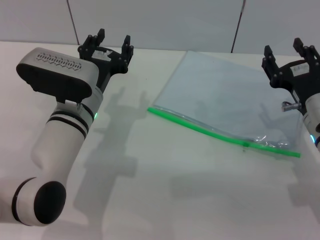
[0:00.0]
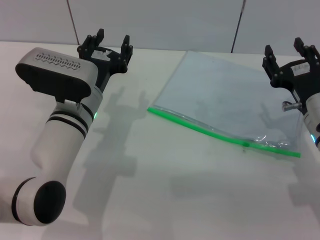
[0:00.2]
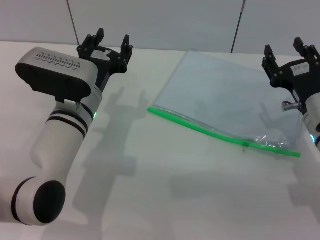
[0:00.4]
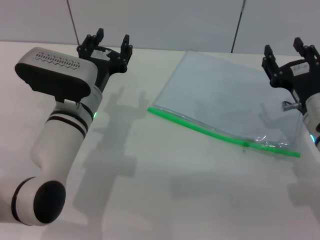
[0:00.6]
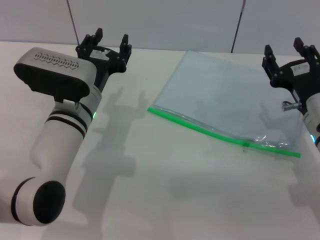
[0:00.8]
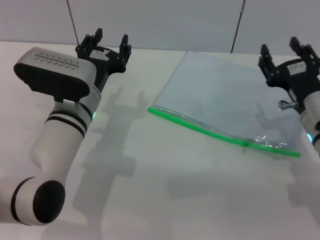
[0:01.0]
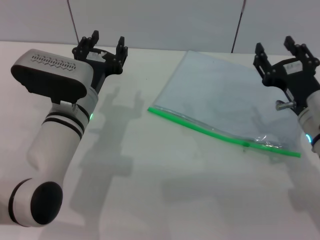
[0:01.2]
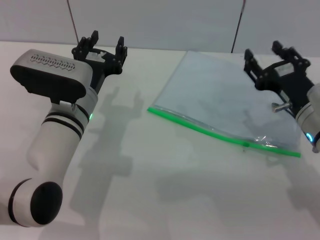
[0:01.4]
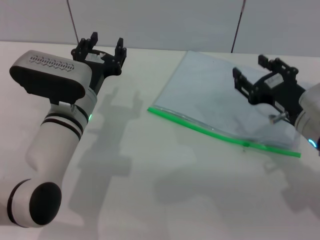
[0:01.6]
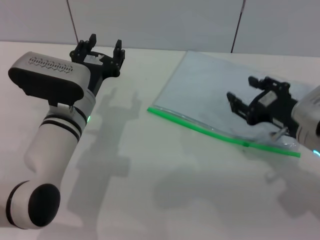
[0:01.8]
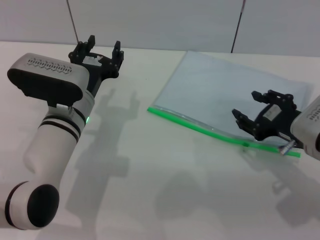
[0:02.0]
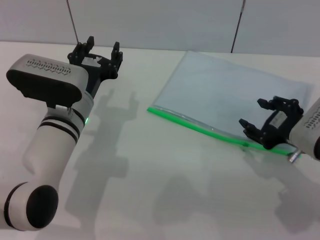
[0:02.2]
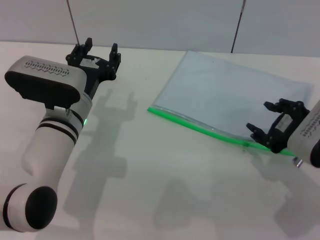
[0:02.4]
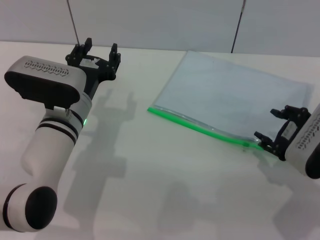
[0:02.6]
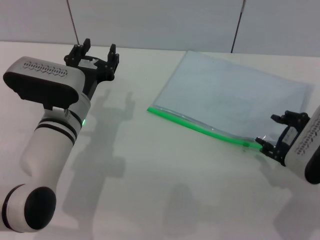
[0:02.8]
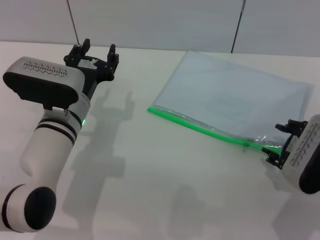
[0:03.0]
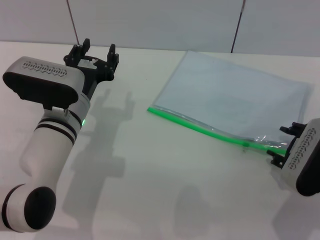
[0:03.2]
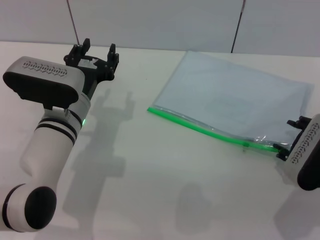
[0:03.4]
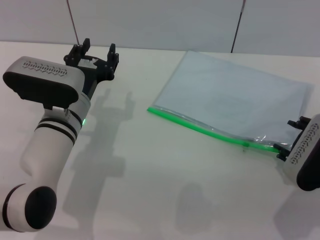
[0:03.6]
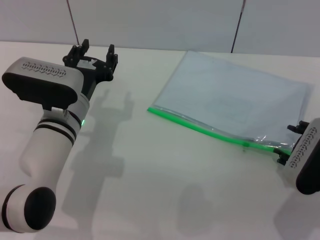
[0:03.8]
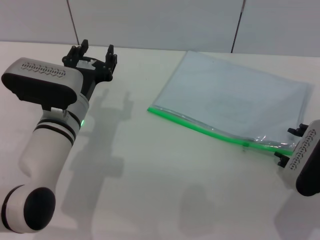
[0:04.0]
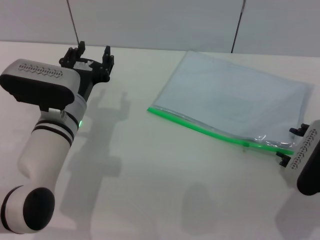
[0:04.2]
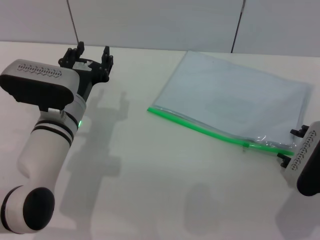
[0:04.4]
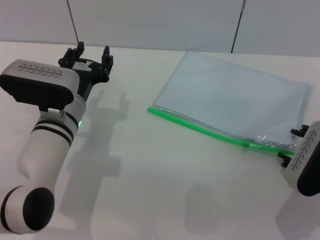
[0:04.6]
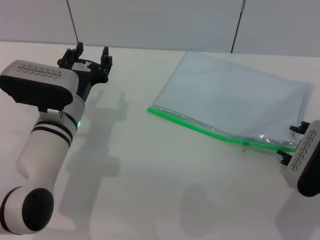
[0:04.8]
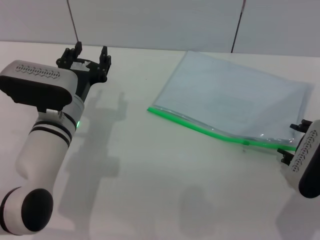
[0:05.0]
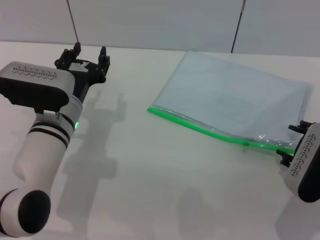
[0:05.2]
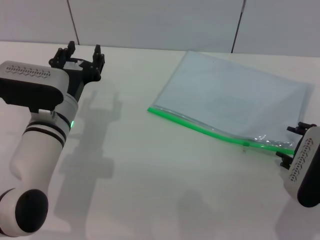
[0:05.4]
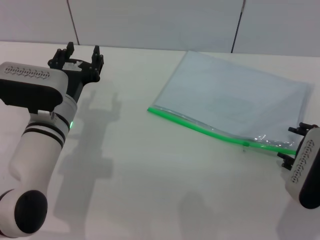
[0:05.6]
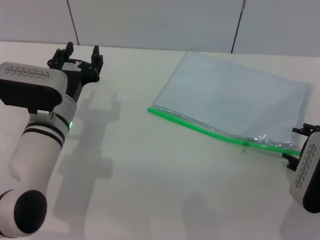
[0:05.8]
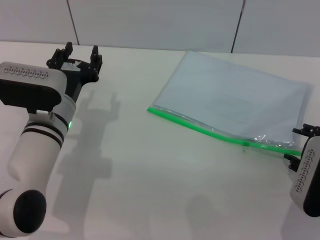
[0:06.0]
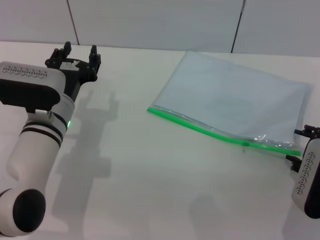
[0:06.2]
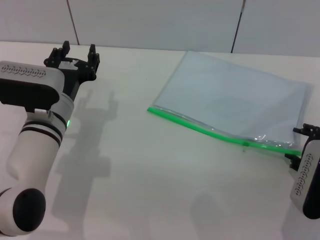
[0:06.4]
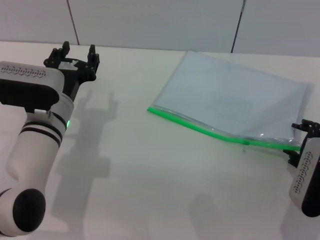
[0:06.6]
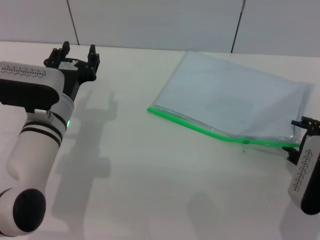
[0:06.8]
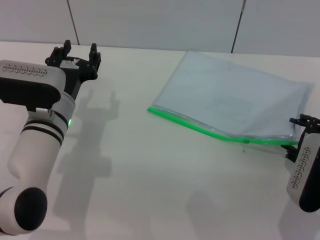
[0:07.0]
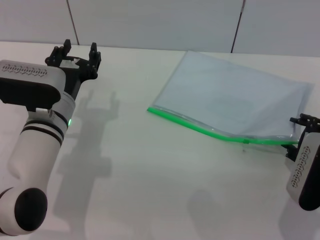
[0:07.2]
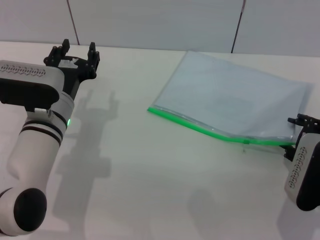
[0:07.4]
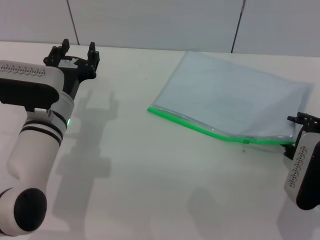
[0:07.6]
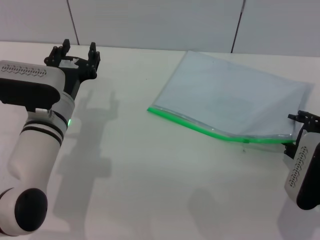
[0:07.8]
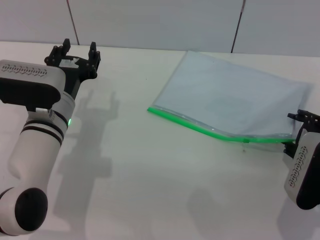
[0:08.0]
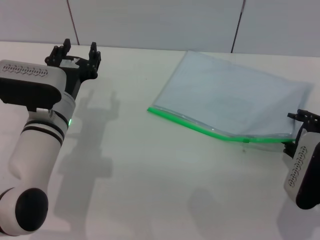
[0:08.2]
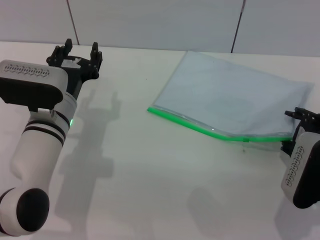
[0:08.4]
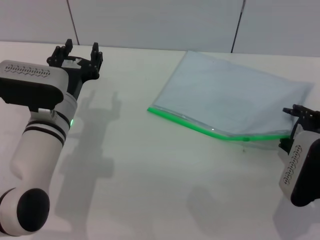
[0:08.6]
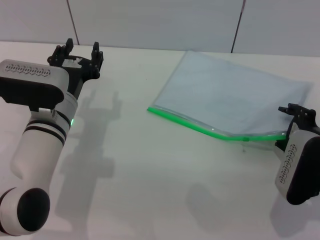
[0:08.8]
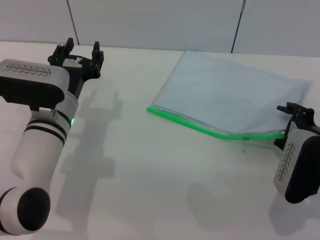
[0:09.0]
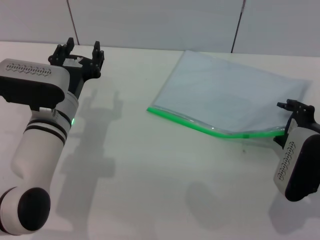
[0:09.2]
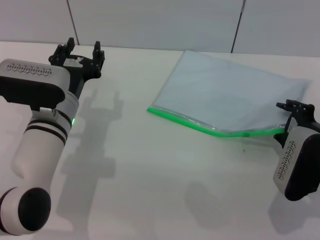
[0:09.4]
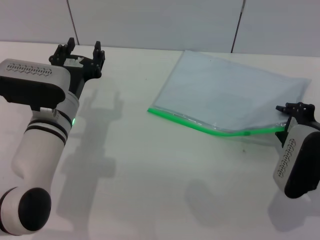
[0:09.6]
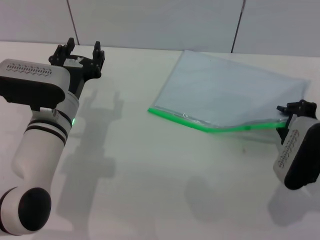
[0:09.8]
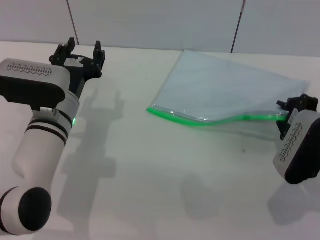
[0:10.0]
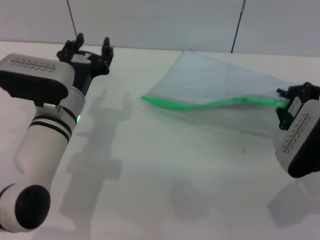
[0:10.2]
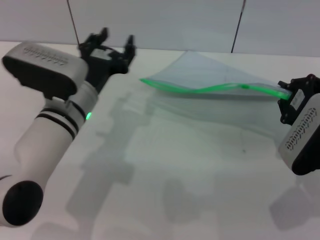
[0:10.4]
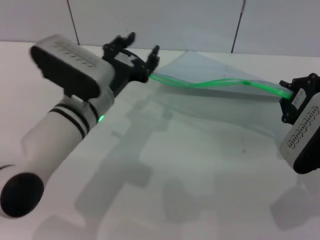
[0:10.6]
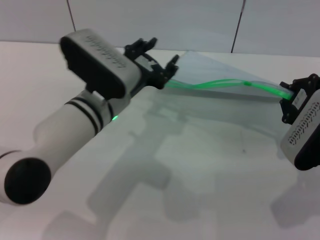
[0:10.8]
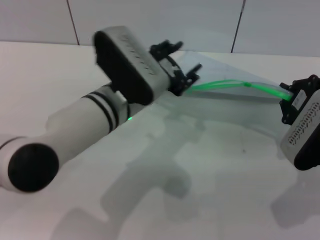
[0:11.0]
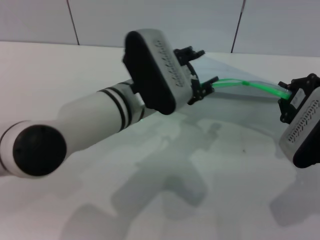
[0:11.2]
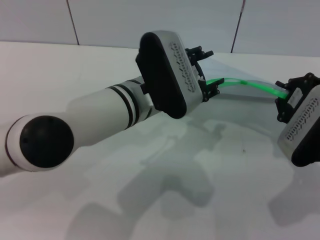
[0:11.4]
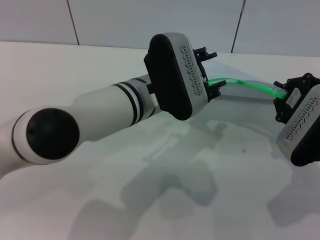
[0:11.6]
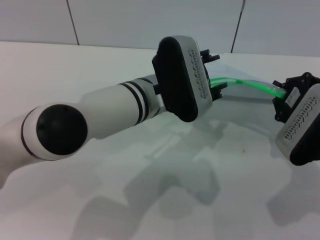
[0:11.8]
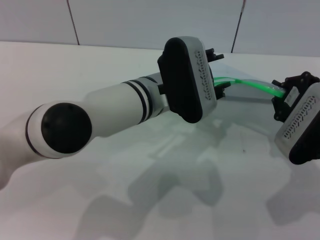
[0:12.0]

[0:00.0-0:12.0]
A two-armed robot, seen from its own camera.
Step, 0:00.0 to 0:10.2: Pick up the transparent plastic bag with the right gripper.
0:00.0 to 0:01.6: The grippers stay close to where they were, moving slightly.
0:01.6 to 0:03.0: The right gripper ends up approximately 5 cm from where it was.
0:03.0 to 0:07.6: The grippers stay close to where they were, moving slightly.
0:07.6 to 0:09.0: The grippers make only small movements.
0:09.0 to 0:10.4: The right gripper closes.
0:10.4 to 0:12.0: The left gripper goes roughly 10 cm to the right.

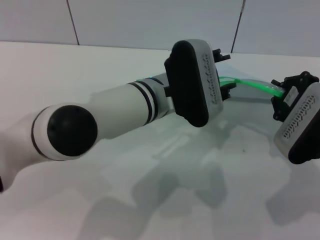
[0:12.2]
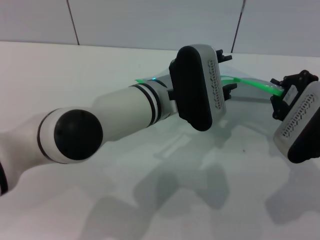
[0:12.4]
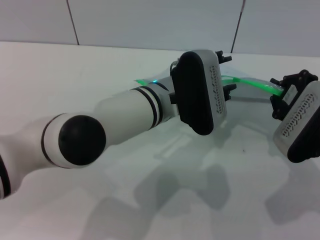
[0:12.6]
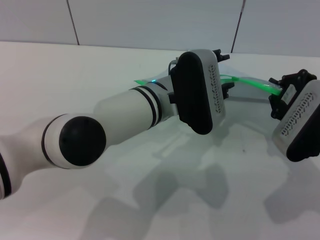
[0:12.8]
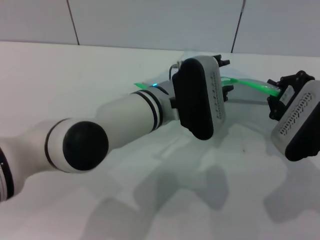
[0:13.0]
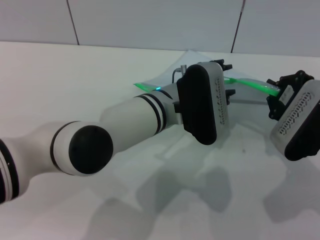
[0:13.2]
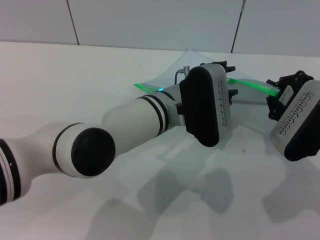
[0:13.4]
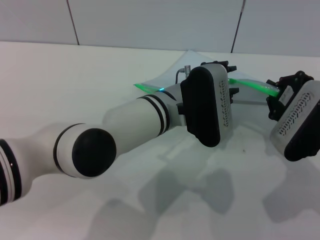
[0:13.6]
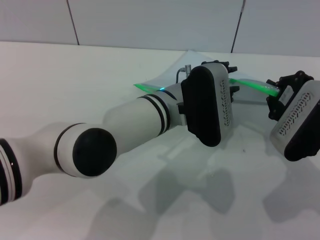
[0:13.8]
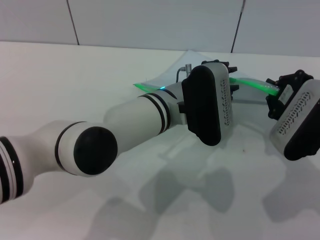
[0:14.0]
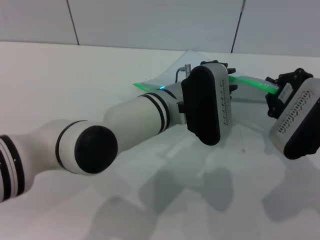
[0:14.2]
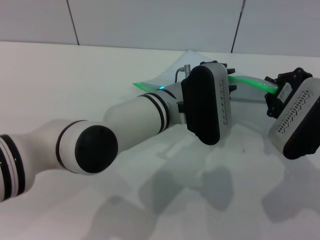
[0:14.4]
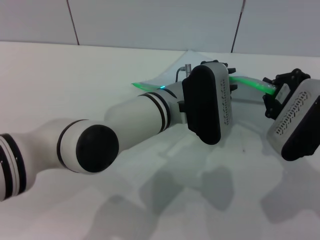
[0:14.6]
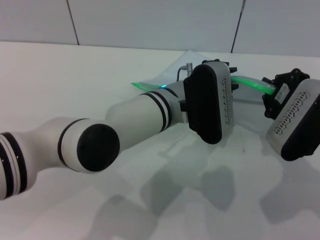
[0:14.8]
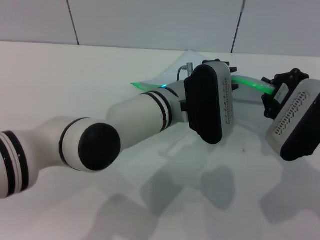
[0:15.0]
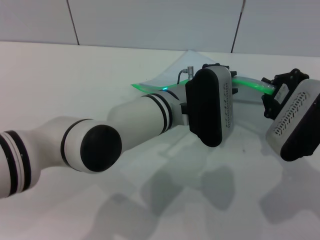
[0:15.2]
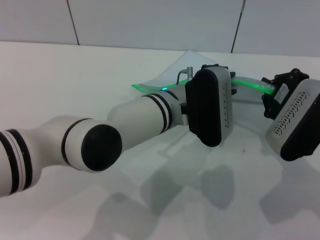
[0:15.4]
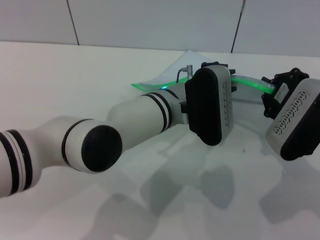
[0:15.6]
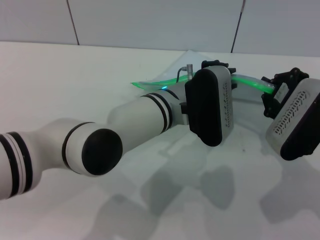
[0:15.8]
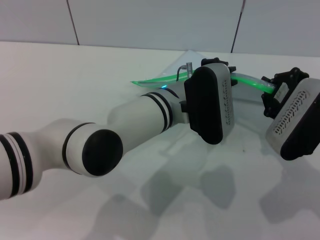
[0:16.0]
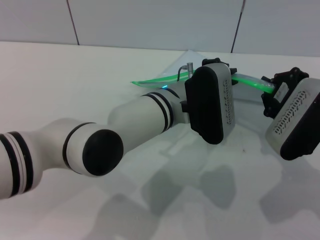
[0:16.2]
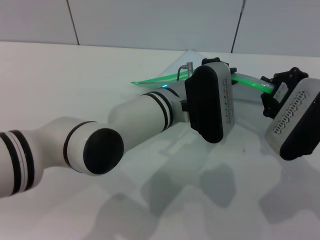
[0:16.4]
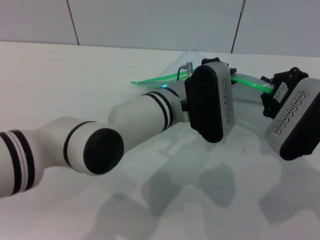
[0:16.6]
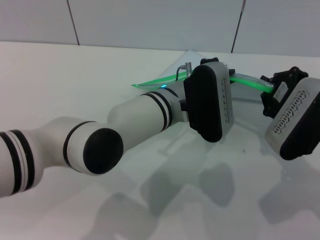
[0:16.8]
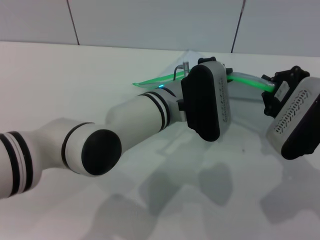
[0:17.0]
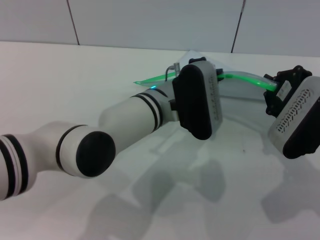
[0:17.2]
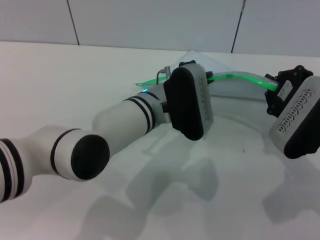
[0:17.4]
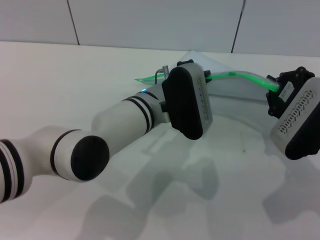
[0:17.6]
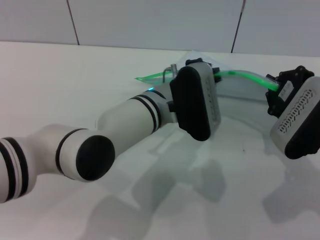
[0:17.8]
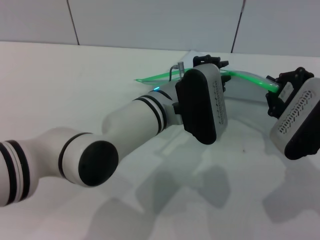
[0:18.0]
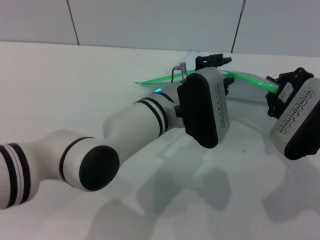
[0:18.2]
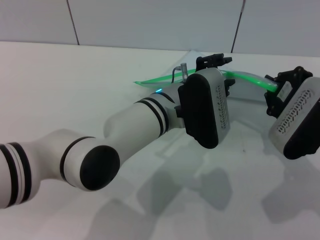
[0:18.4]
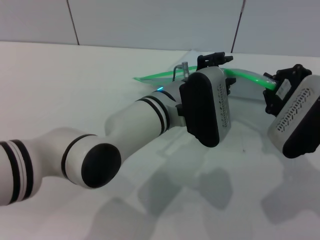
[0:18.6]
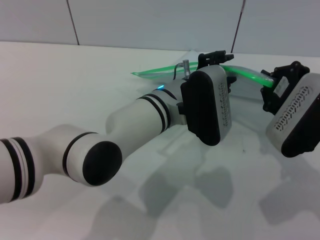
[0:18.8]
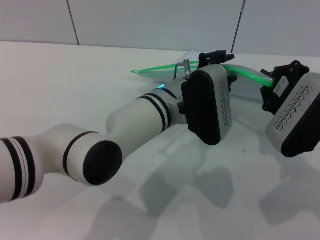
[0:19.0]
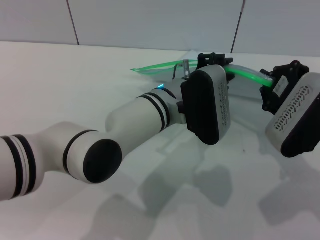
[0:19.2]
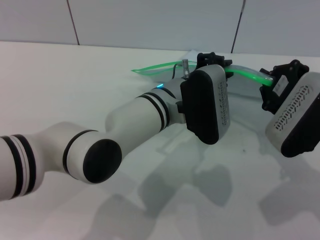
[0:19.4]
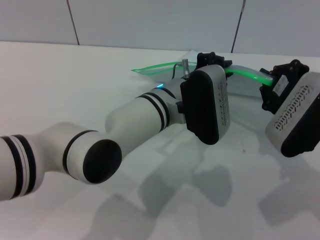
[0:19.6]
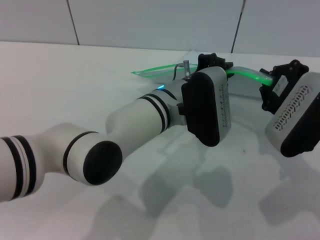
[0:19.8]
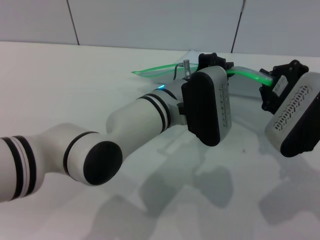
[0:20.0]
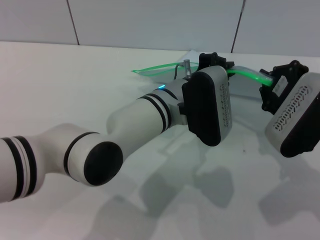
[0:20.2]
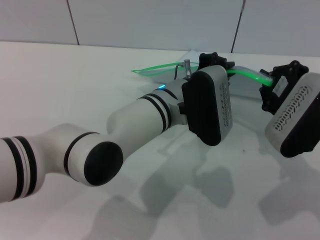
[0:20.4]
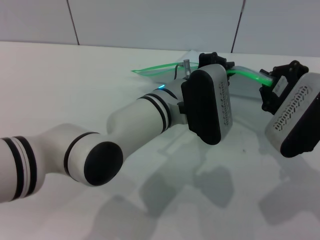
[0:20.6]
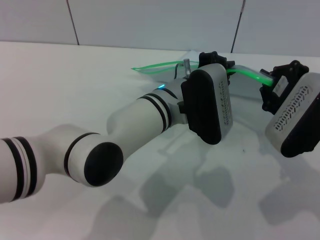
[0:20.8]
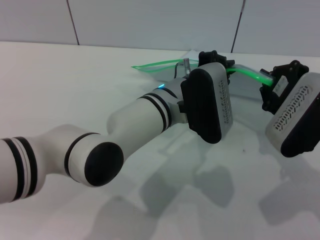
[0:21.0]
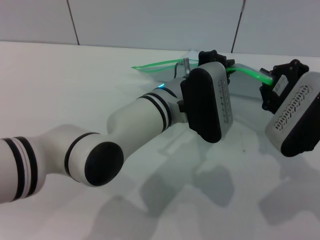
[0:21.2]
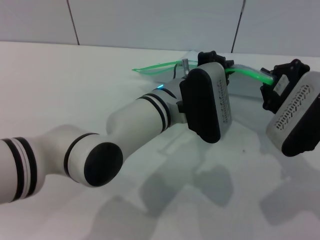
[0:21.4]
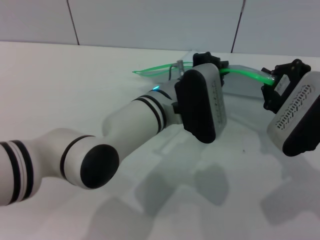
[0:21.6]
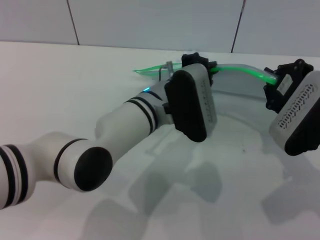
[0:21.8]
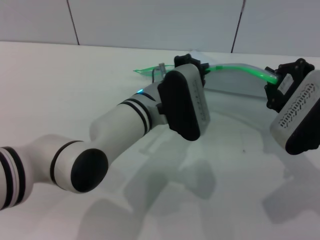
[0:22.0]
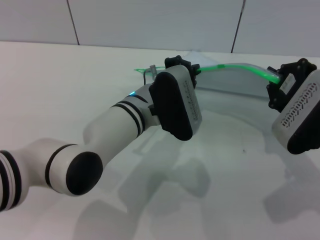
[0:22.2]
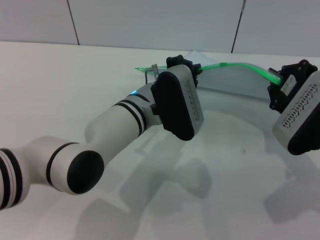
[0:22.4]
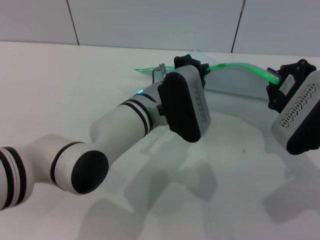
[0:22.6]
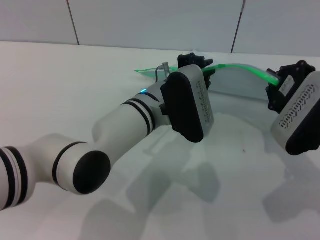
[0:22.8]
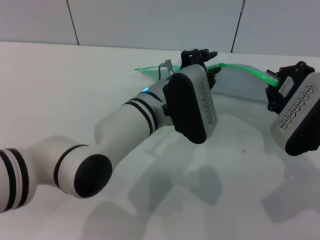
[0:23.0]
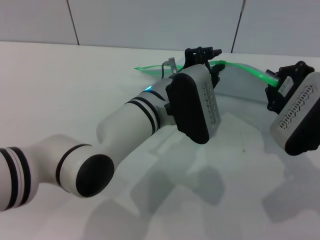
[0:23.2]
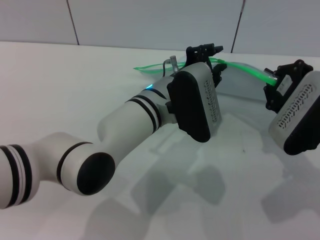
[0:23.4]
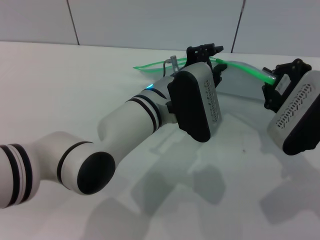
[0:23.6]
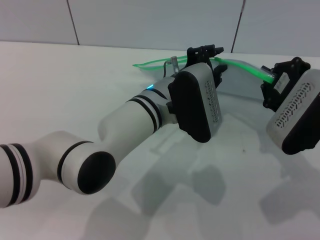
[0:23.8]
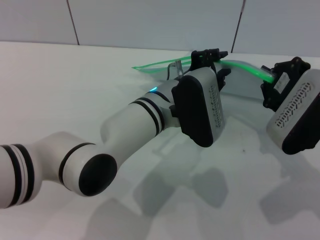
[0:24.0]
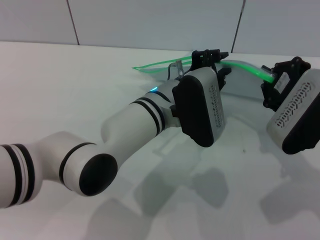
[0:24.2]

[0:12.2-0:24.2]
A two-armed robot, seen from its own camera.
0:12.2 to 0:13.8: The grippers stay close to where they were, moving slightly.
0:13.8 to 0:16.6: Neither gripper changes place.
0:16.6 to 0:19.8: The grippers make only small movements.
0:19.8 to 0:21.2: The two grippers keep their place.
0:21.2 to 0:22.6: The grippers make only small movements.
0:22.6 to 0:24.2: The left gripper opens up.
